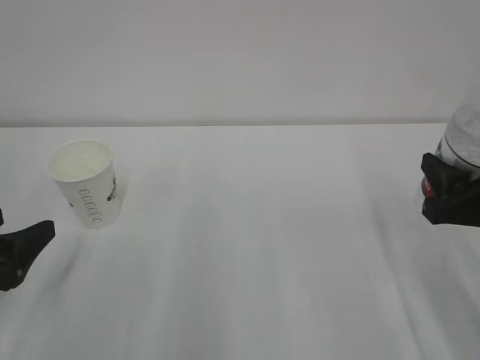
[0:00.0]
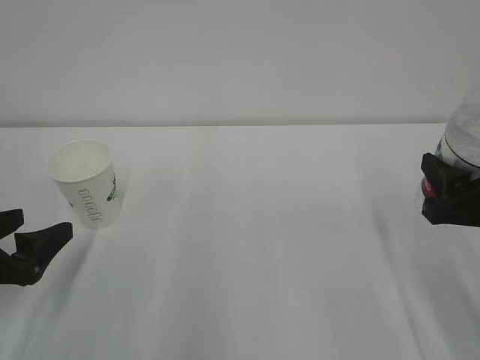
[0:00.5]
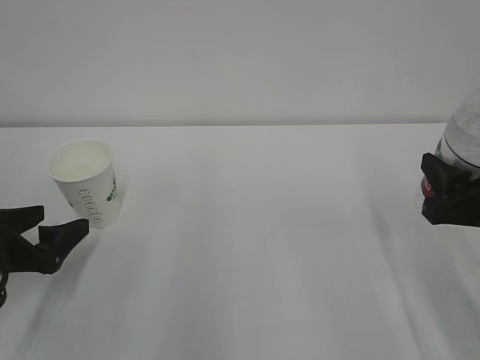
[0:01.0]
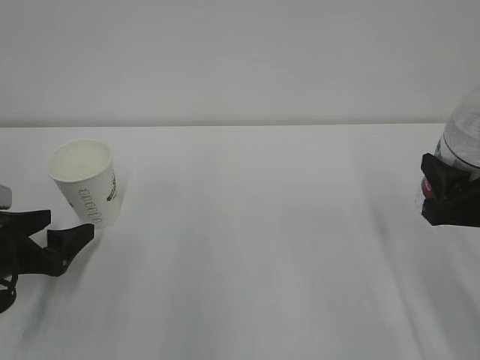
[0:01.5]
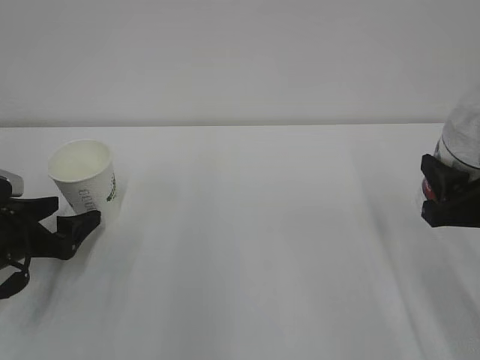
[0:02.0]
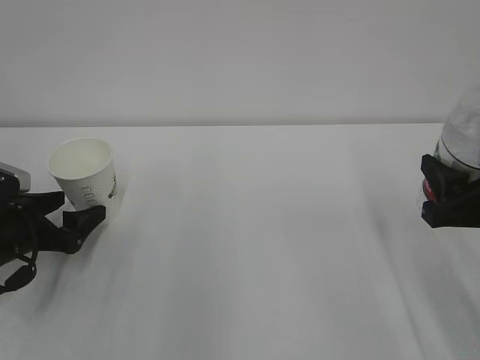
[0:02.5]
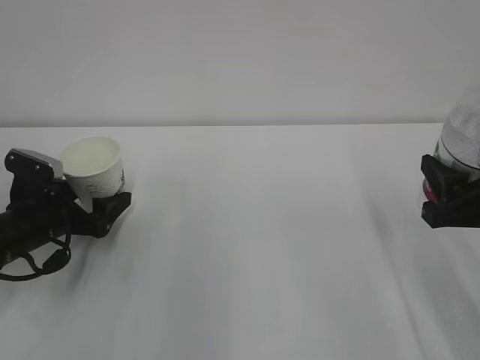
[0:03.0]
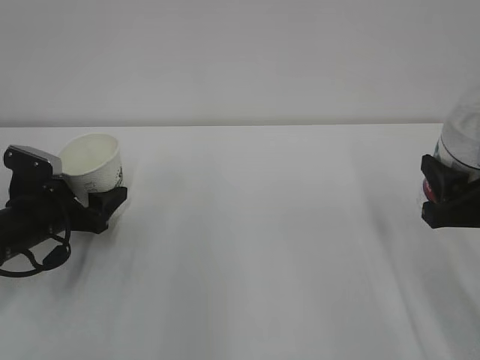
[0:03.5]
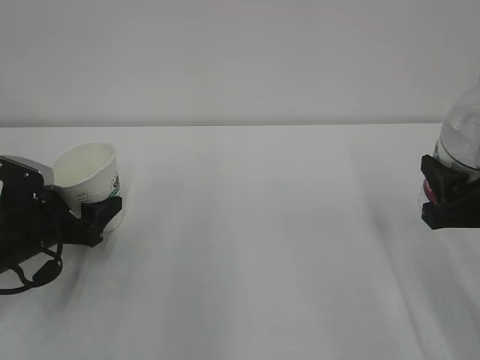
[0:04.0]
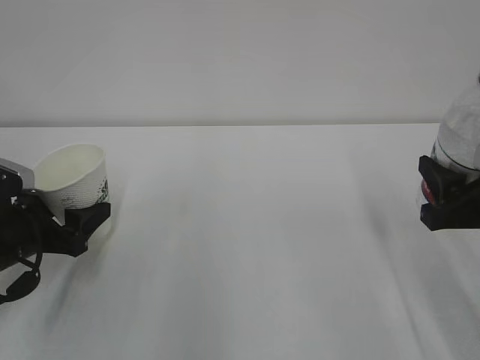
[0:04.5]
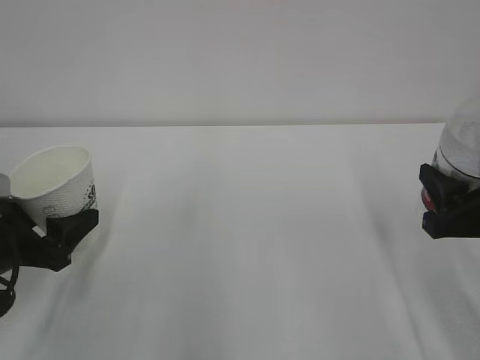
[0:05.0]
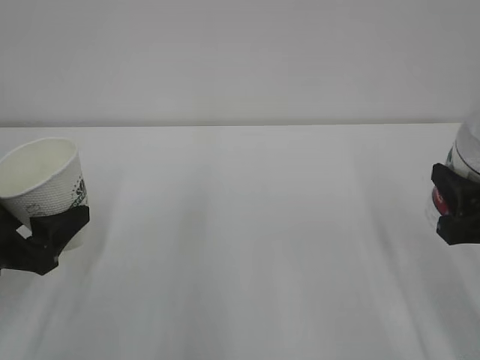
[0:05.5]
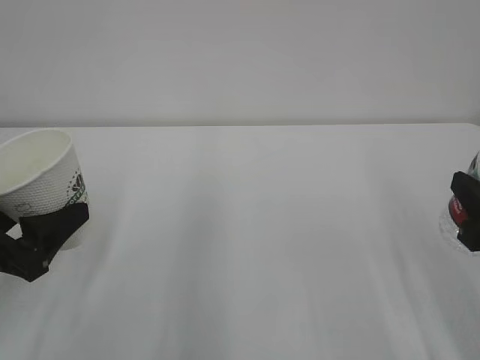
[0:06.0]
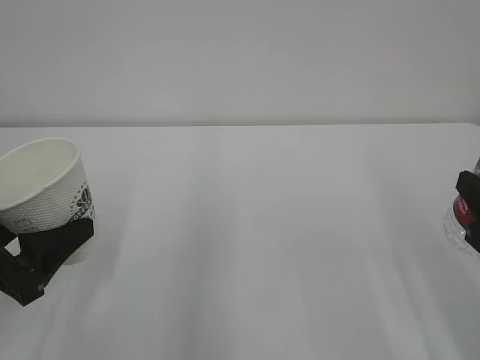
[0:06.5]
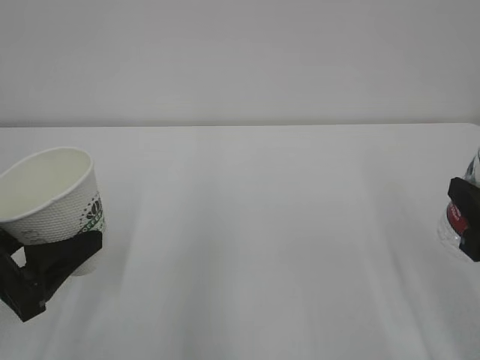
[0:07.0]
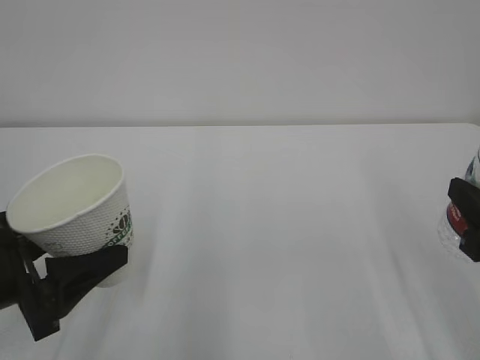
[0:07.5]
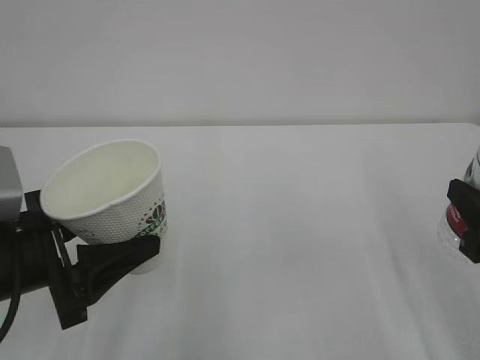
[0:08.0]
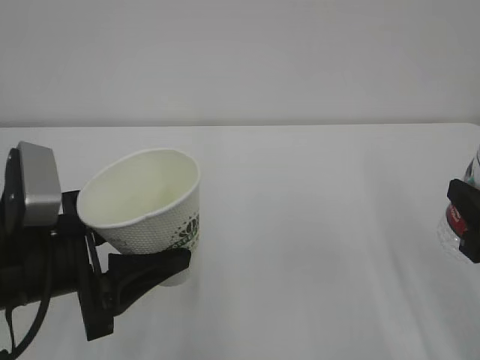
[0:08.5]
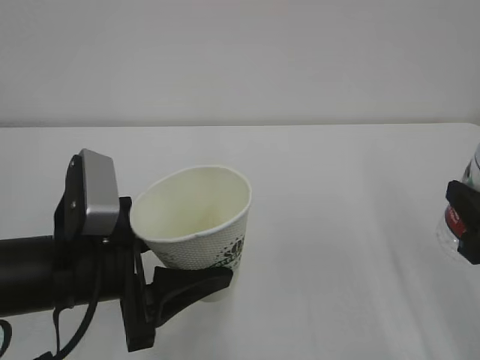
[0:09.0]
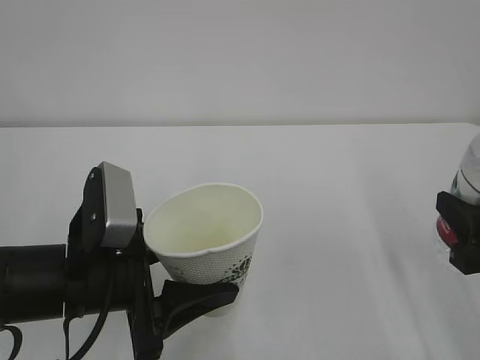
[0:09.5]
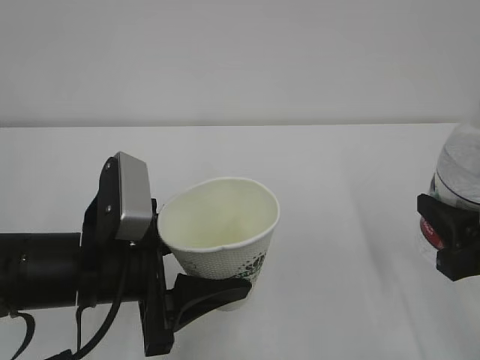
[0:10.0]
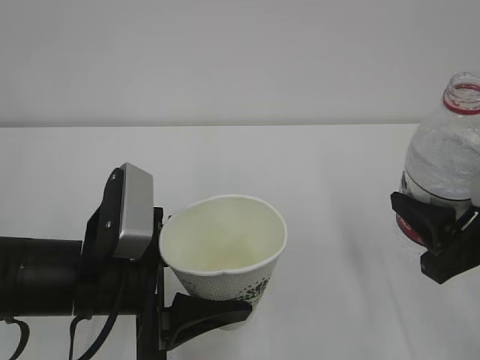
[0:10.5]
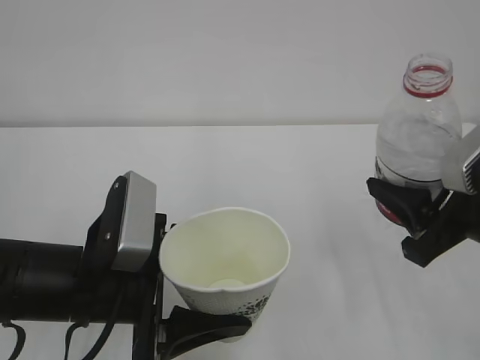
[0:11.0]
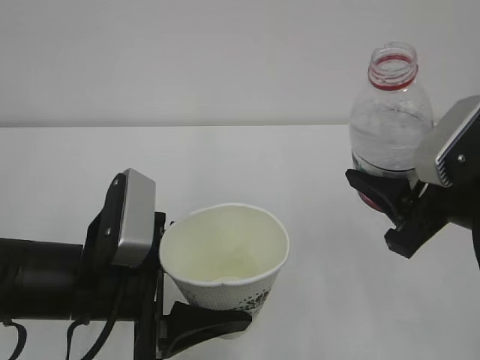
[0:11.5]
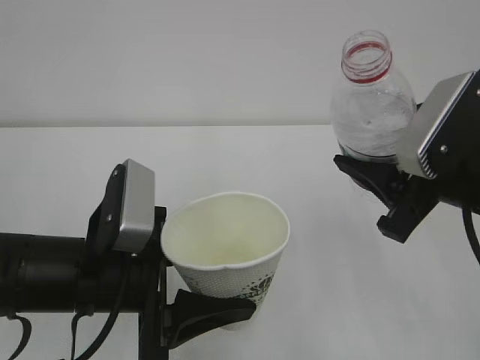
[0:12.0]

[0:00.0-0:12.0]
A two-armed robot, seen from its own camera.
0.0 to 2.0 s: The left gripper travels forward and downward by roughly 10 cm.
2.0 to 4.0 s: The left gripper closes.
4.0 to 6.0 s: The left gripper goes about 15 cm backward and upward.
6.0 to 8.0 s: The left gripper shifts some 5 cm to the right.
8.0 to 10.0 s: The left gripper is displaced to the right by some 10 cm.
10.0 to 12.0 s: The right gripper heads upward and to the left, covering approximately 10 cm.

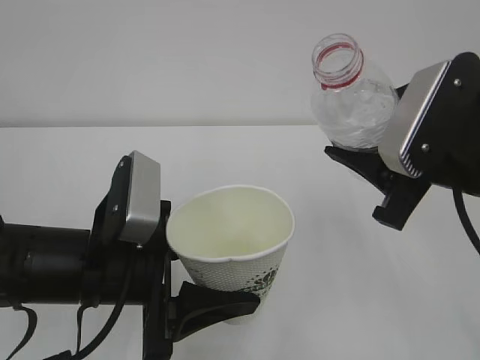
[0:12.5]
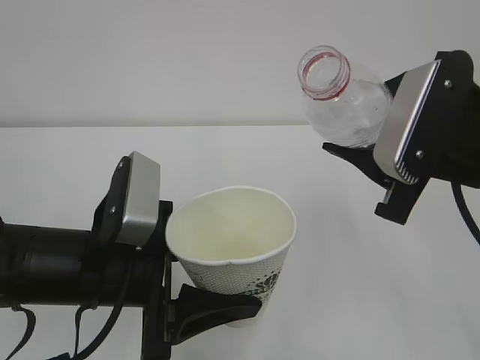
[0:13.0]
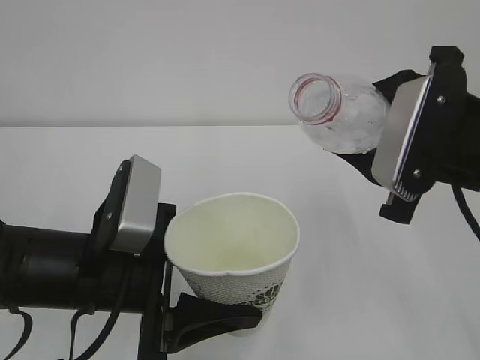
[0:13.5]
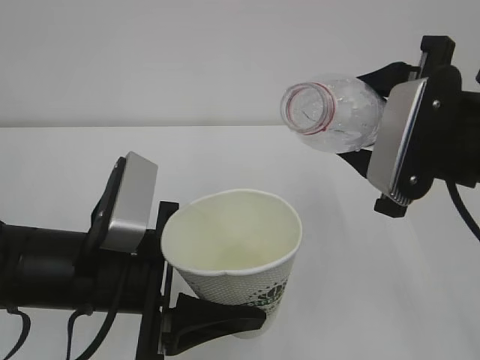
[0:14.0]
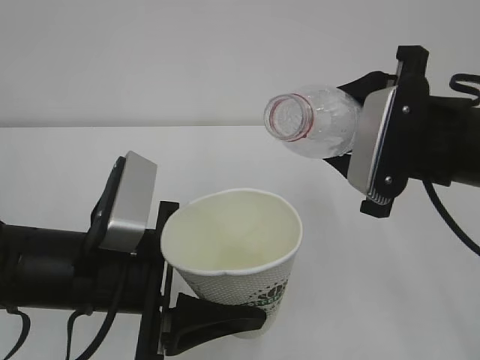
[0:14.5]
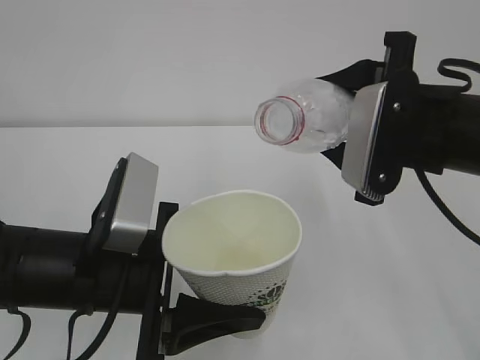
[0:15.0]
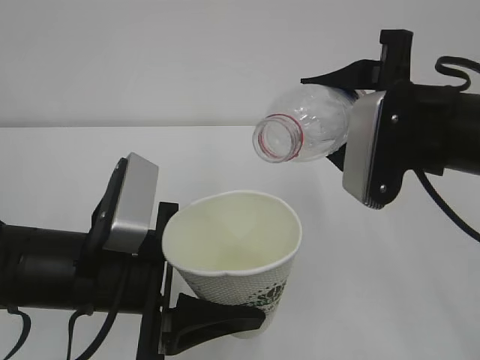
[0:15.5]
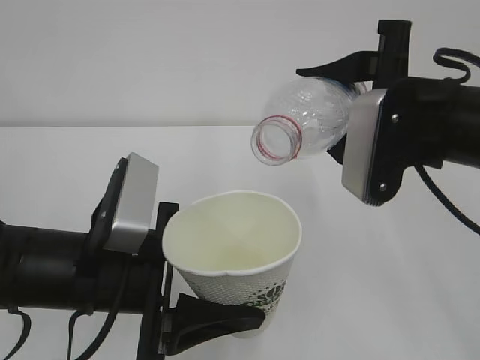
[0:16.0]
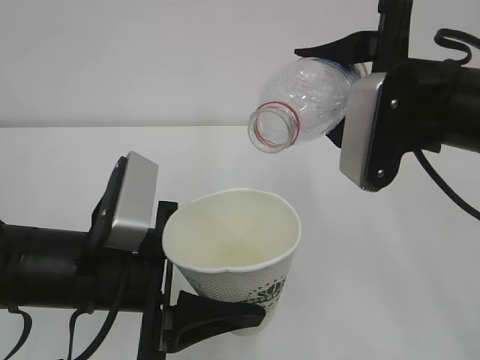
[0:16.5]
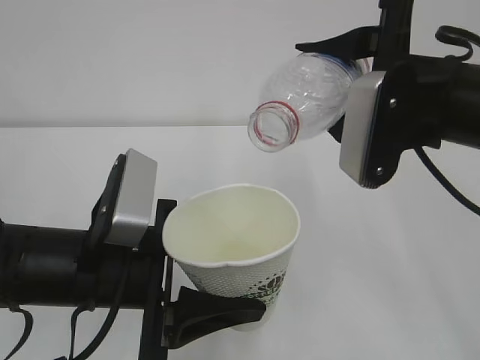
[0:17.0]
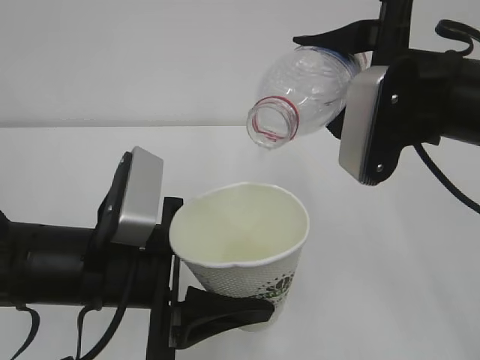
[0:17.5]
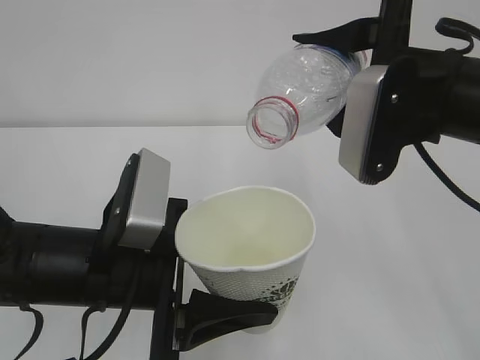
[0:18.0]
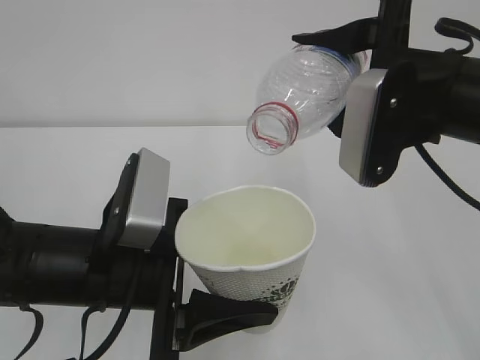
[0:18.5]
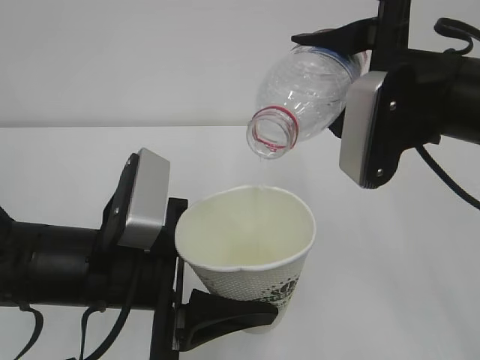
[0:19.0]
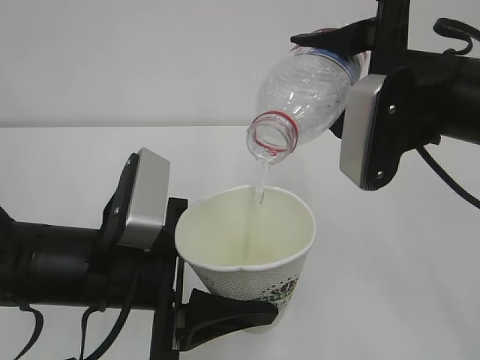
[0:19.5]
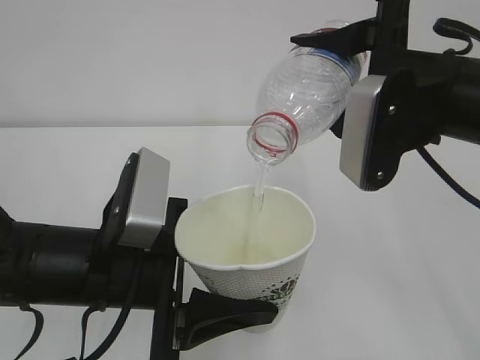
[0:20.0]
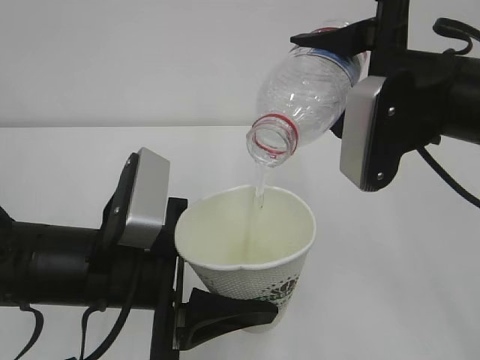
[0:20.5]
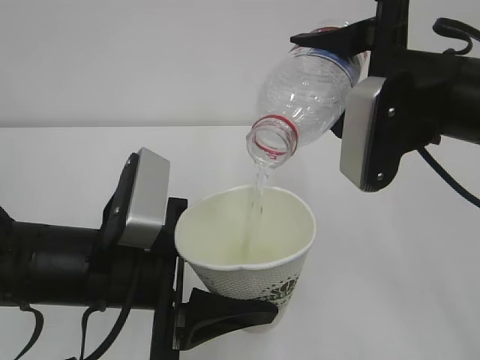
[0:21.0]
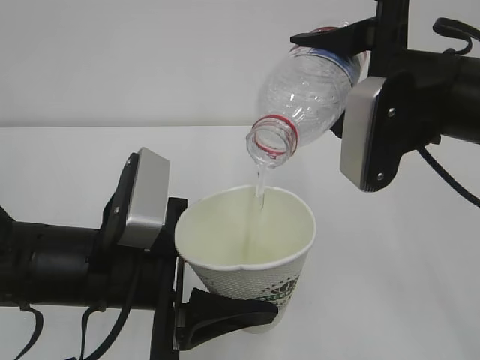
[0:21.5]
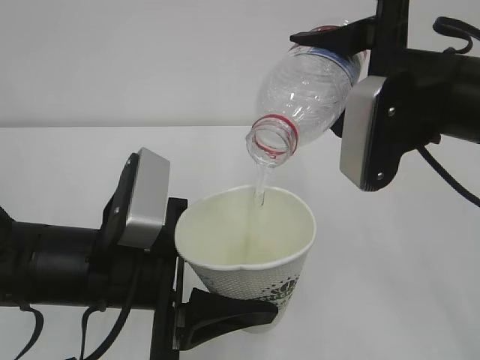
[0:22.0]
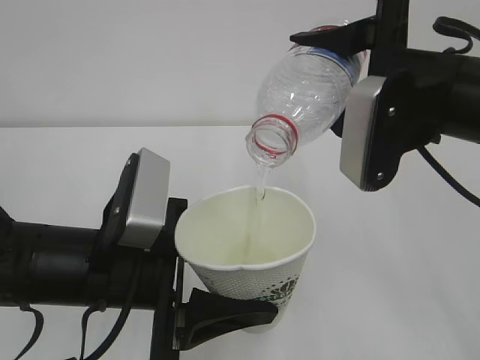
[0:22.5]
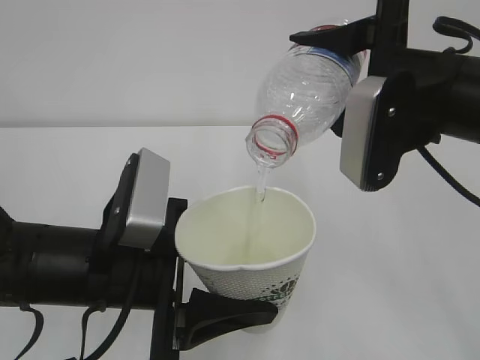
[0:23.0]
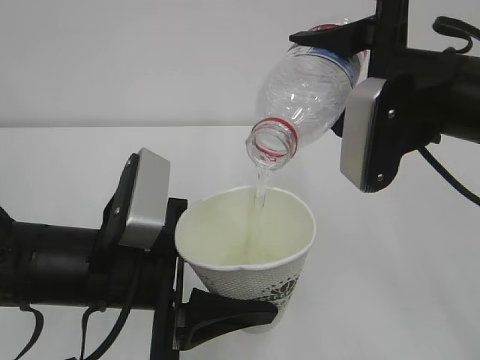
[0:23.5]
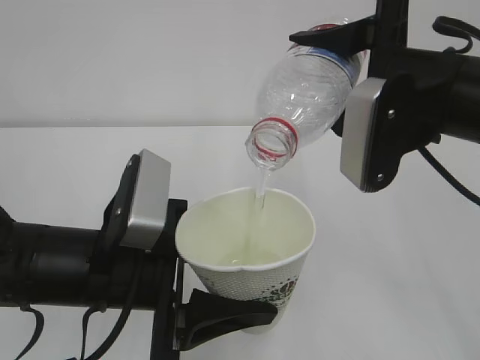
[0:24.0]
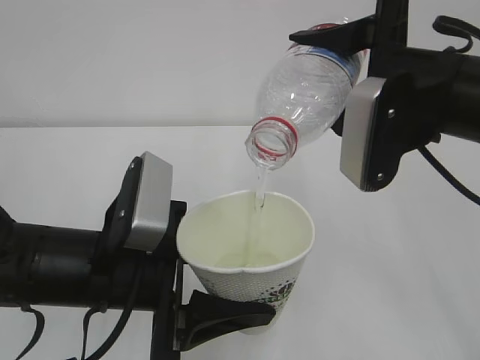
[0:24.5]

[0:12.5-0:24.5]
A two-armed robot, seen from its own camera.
14.5 to 16.5 s: The grippers make only small movements.
16.5 to 18.5 s: The grippers make only small movements.
18.5 to 22.5 s: Both grippers stay about where they are.
22.5 to 24.5 s: Neither gripper changes place.

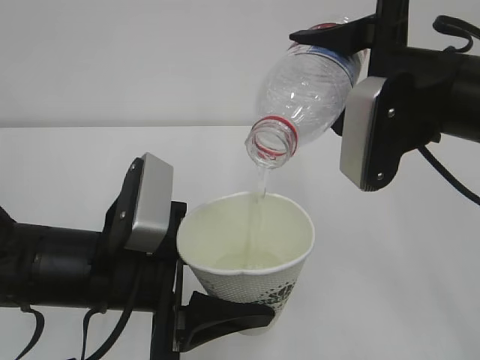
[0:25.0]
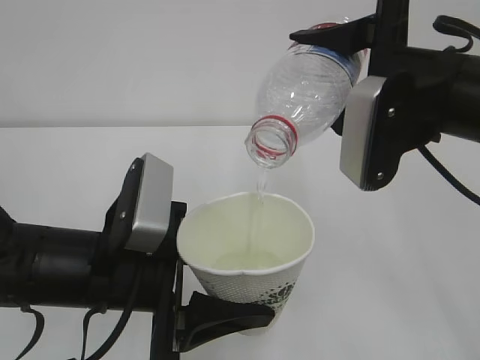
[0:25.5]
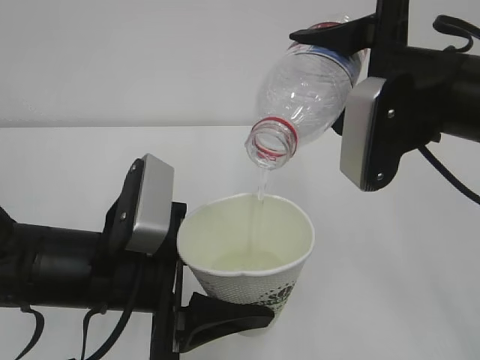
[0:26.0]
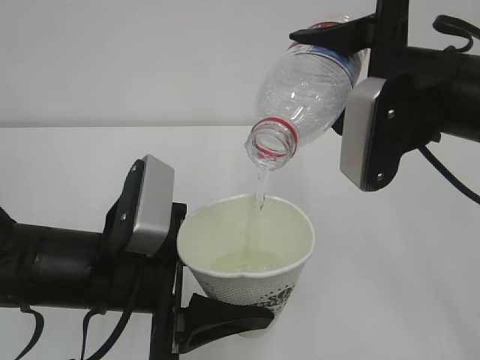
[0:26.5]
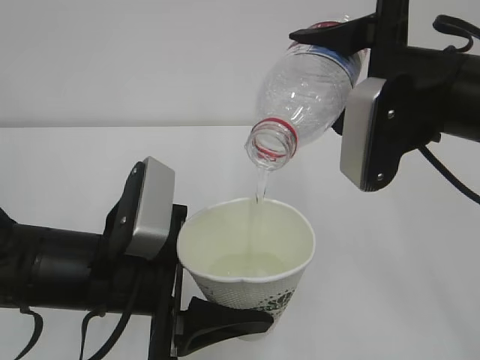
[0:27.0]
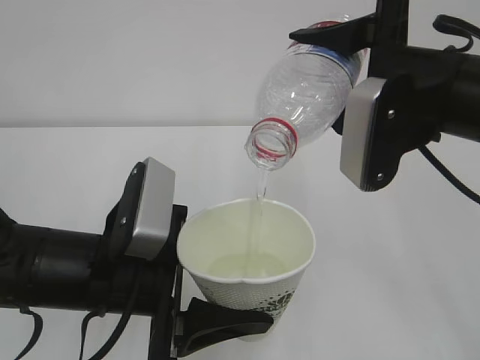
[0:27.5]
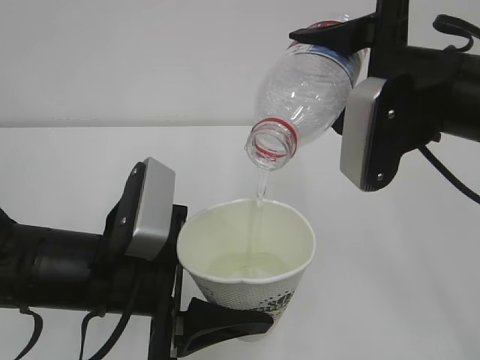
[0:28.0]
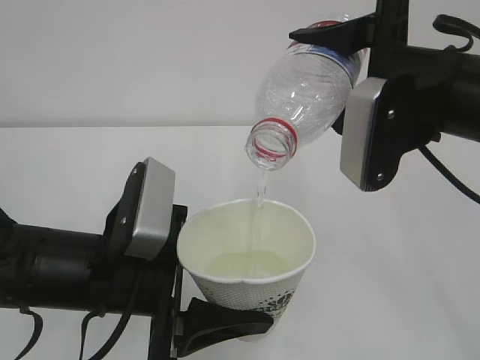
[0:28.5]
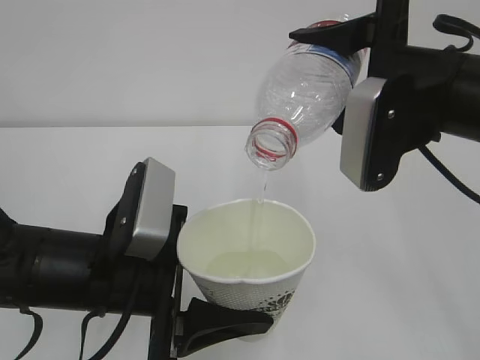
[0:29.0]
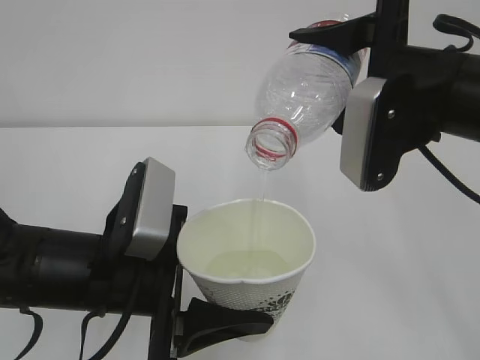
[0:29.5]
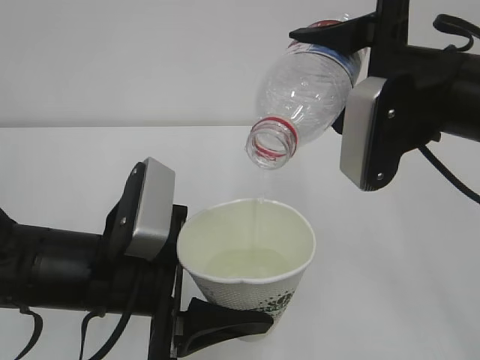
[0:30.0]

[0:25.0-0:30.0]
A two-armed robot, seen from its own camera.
25.0 to 30.0 s: The two grippers keep their place.
